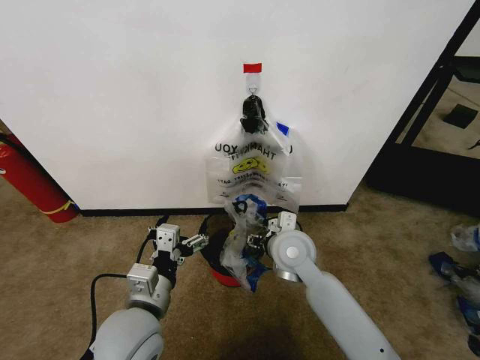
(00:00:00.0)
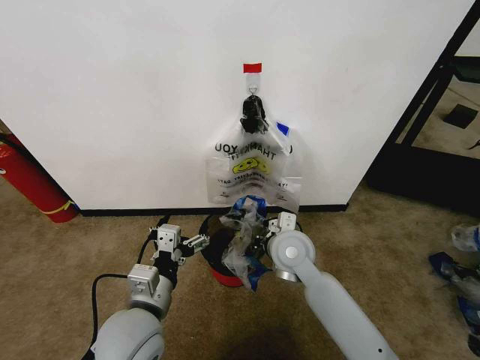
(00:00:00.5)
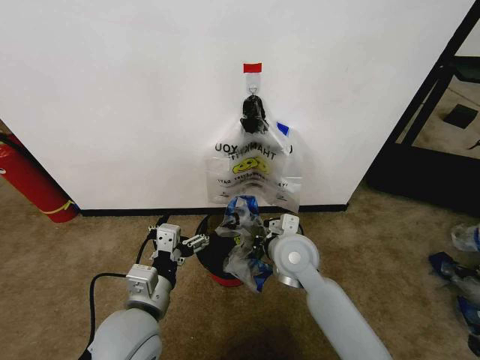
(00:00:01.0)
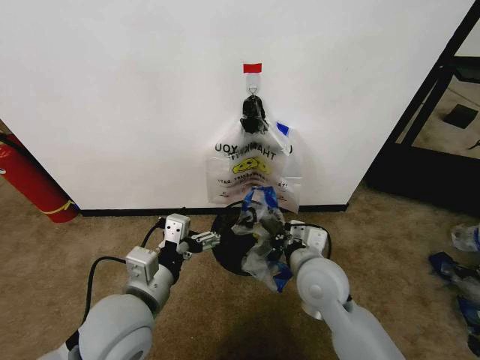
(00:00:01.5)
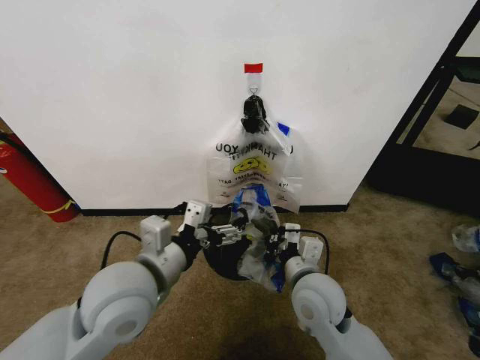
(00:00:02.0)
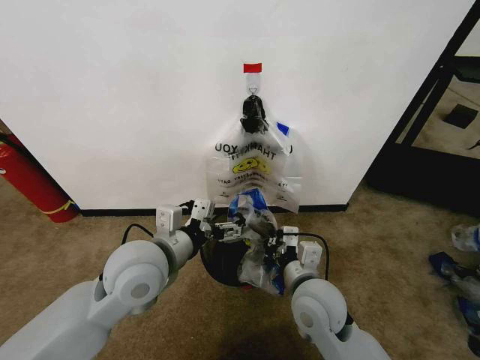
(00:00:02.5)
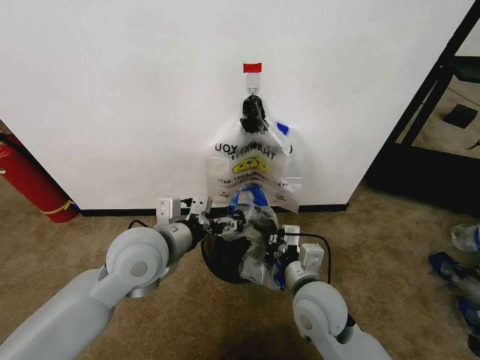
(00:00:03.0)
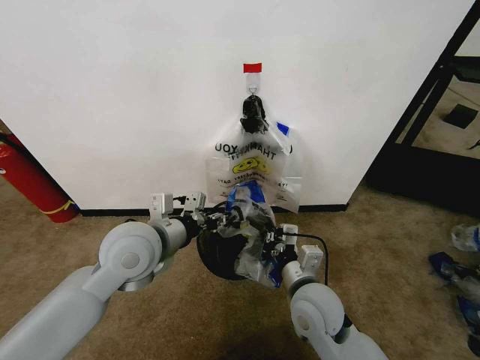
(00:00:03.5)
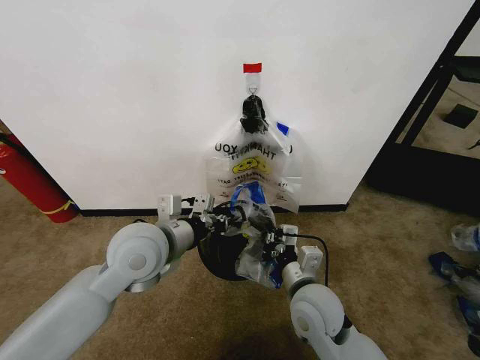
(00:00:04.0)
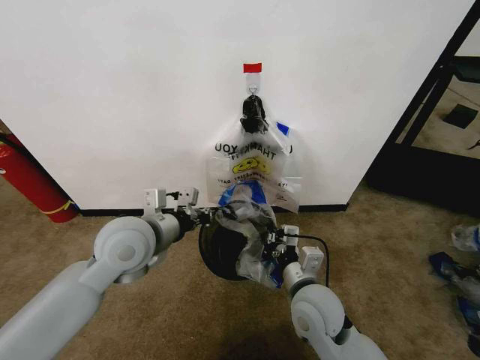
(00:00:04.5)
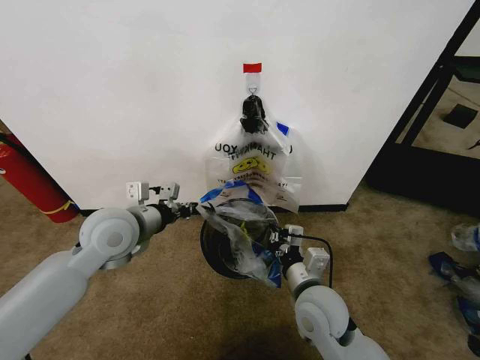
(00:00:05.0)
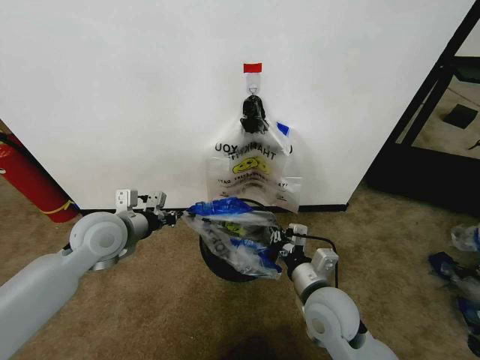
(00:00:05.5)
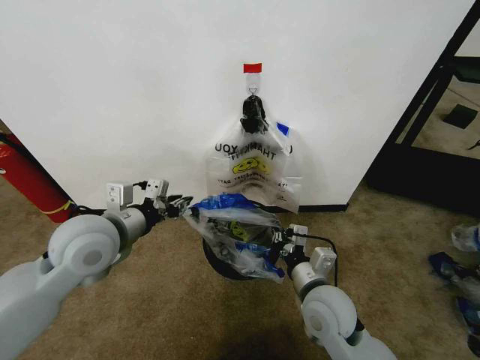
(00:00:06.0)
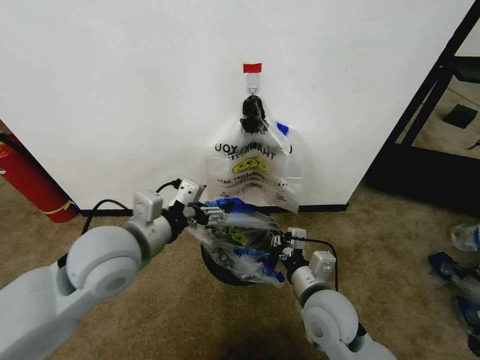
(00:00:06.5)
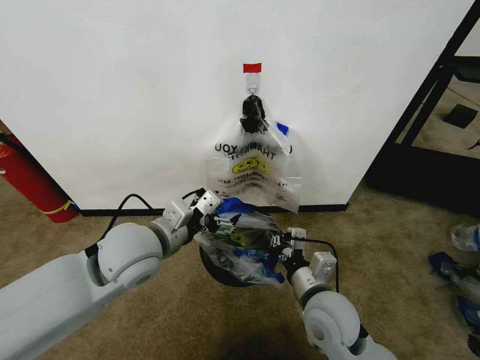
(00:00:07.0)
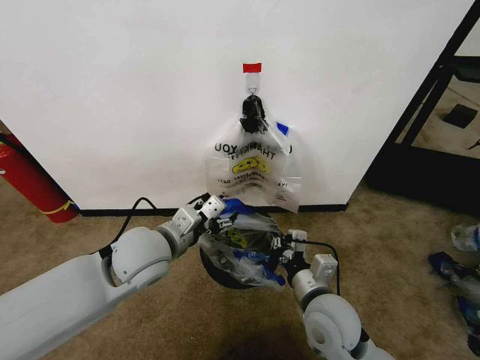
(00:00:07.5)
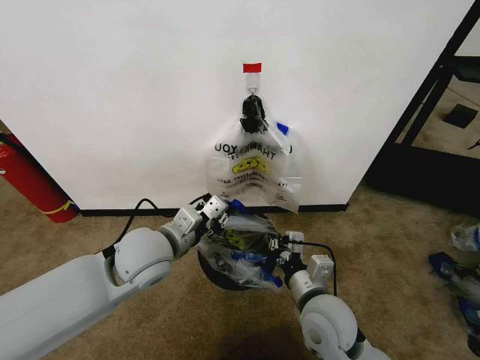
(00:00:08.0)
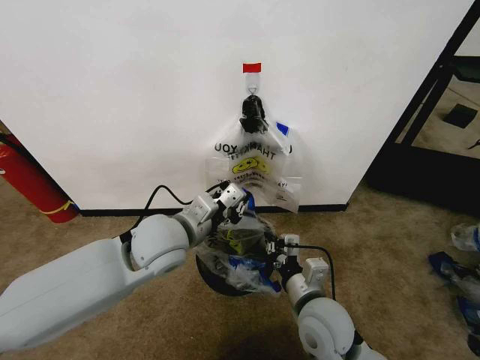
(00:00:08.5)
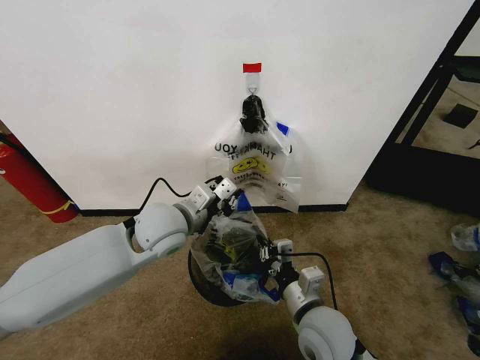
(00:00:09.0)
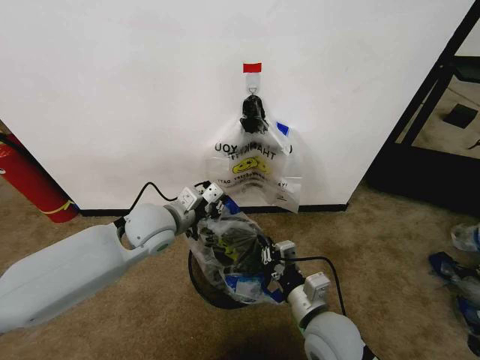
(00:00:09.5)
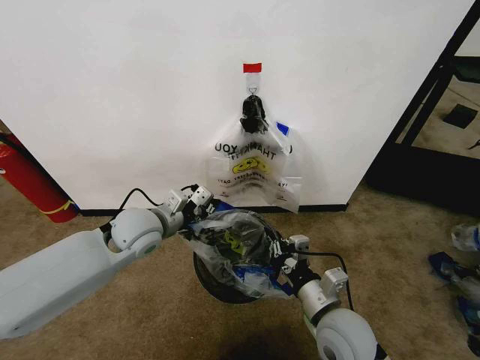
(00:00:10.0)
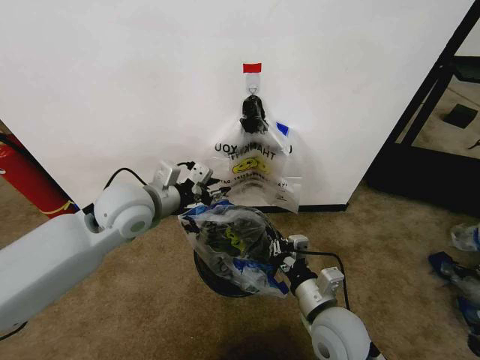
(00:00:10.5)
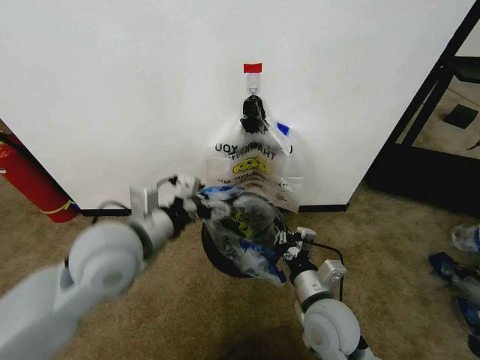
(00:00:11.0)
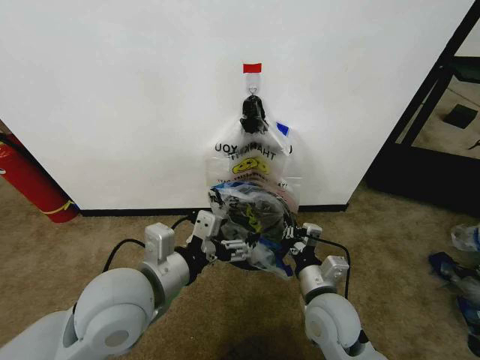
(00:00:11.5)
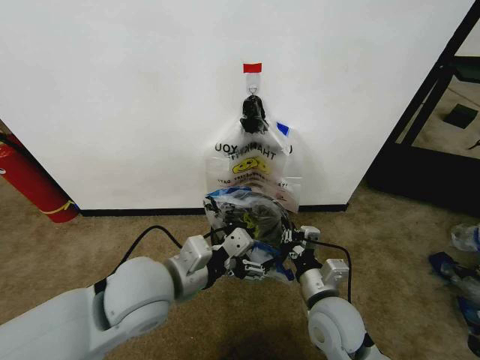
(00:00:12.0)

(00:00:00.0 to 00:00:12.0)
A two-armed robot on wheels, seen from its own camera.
Task of the whole recording: Pick up the garbage bag from the wall and place it over the trash bin.
00:00:00.0 - 00:00:02.0: The right gripper goes roughly 10 cm backward, and closes its fingers. The left gripper goes approximately 10 cm upward.
00:00:02.0 - 00:00:04.0: The left gripper goes about 10 cm forward, and closes.
00:00:04.0 - 00:00:06.0: The left gripper shifts some 10 cm to the left.
00:00:06.0 - 00:00:08.0: The left gripper is displaced to the right and downward by some 10 cm, and opens, then closes again.
00:00:08.0 - 00:00:10.0: The left gripper shifts roughly 5 cm forward.
00:00:10.0 - 00:00:12.0: The left gripper shifts some 15 cm backward and to the right, and opens up.

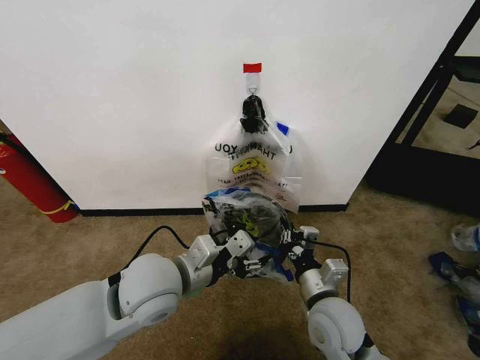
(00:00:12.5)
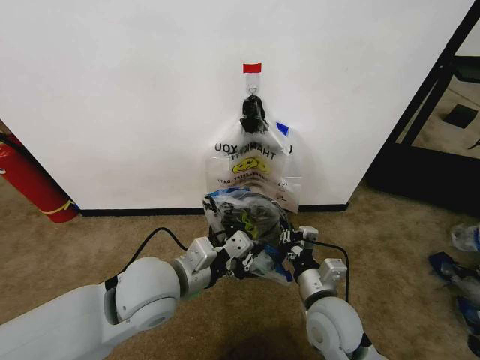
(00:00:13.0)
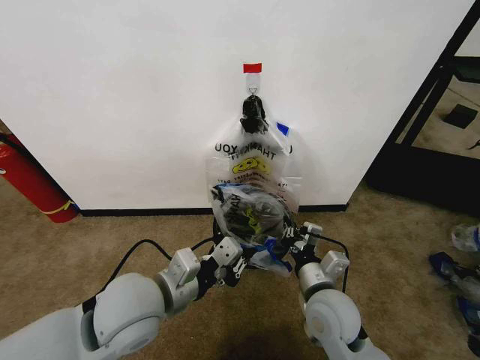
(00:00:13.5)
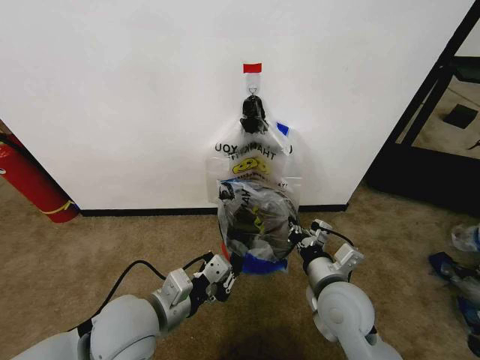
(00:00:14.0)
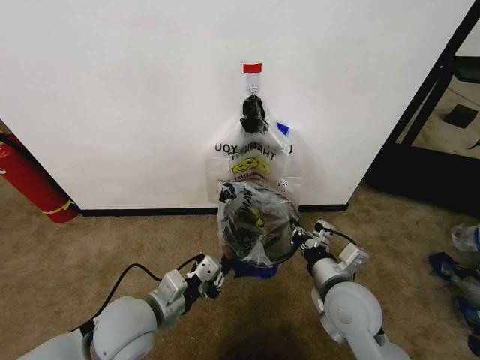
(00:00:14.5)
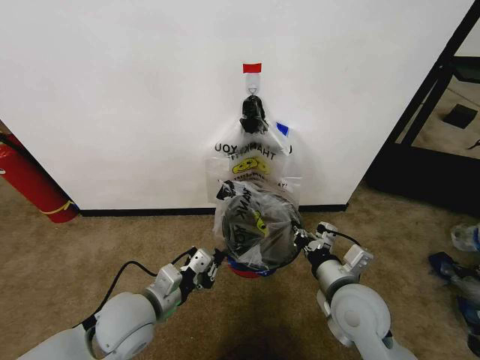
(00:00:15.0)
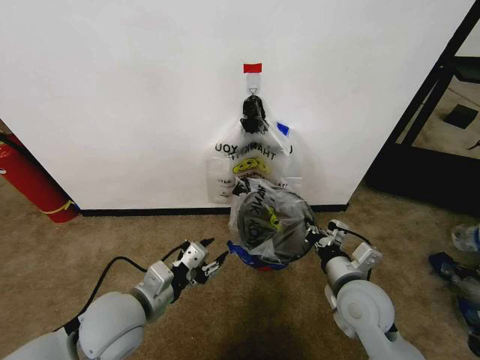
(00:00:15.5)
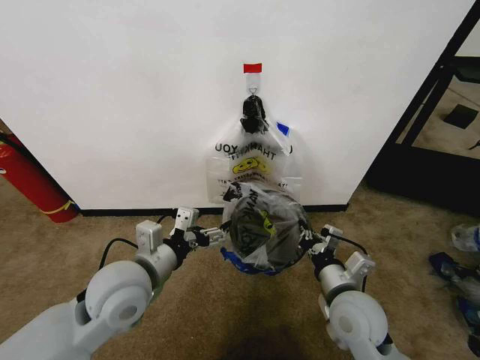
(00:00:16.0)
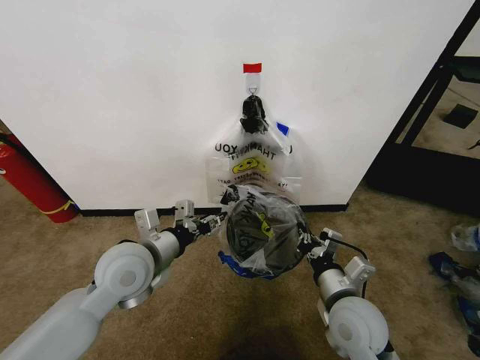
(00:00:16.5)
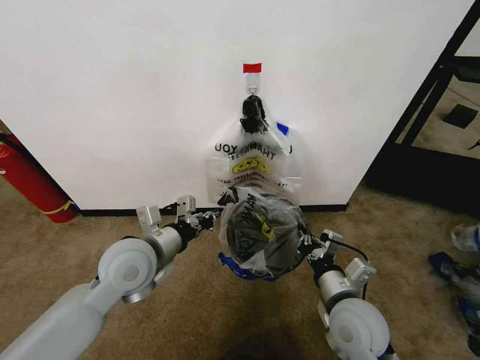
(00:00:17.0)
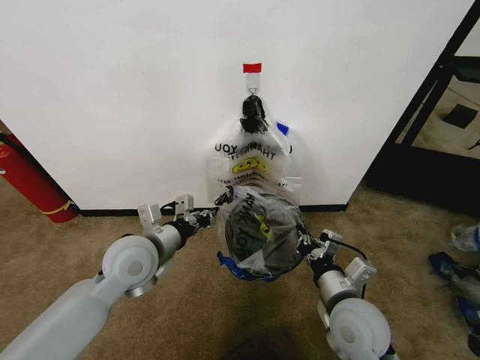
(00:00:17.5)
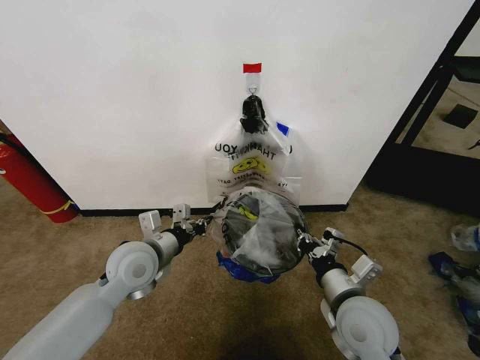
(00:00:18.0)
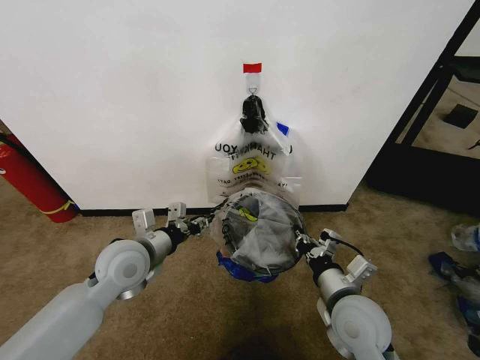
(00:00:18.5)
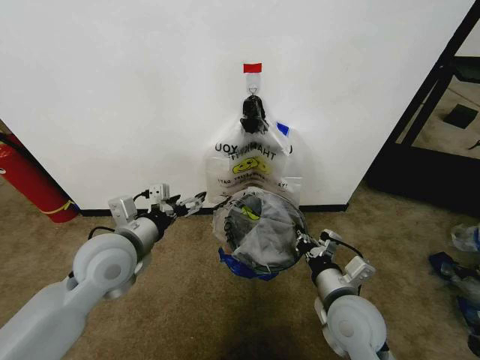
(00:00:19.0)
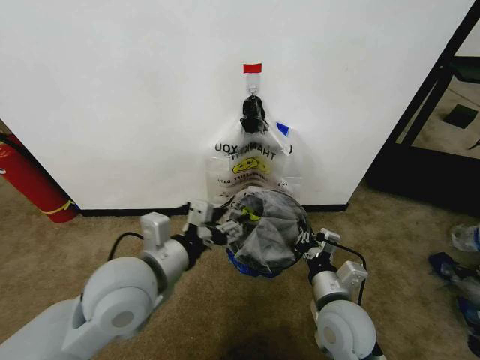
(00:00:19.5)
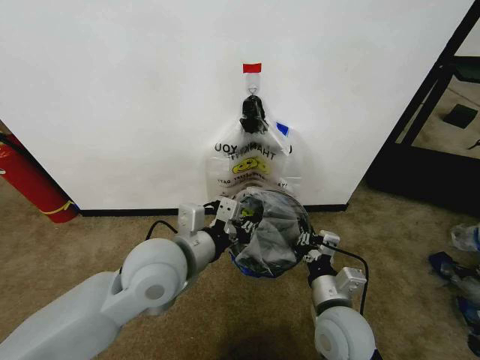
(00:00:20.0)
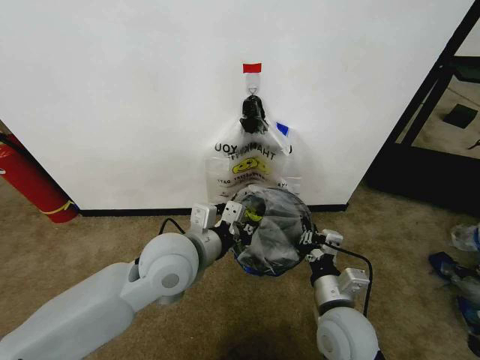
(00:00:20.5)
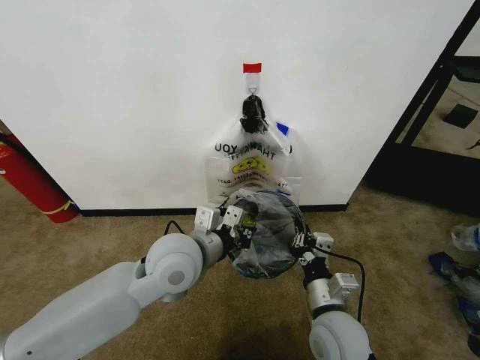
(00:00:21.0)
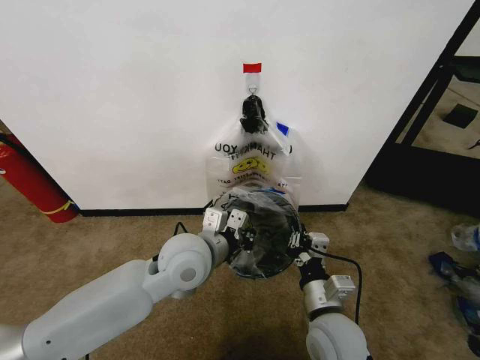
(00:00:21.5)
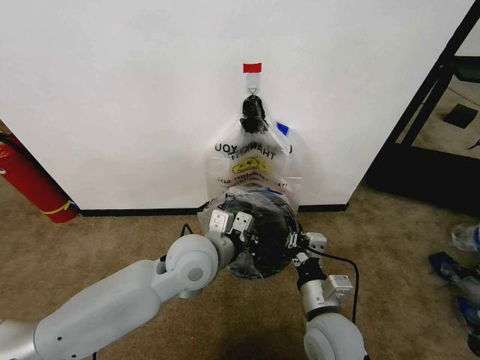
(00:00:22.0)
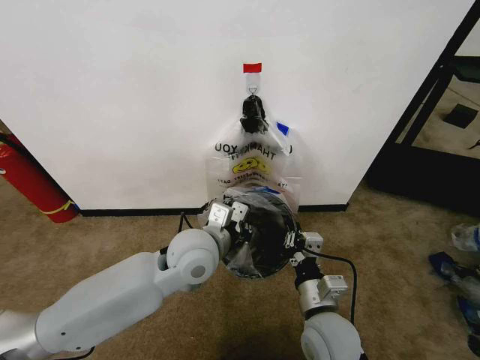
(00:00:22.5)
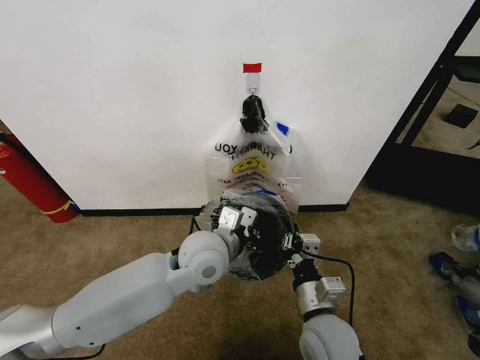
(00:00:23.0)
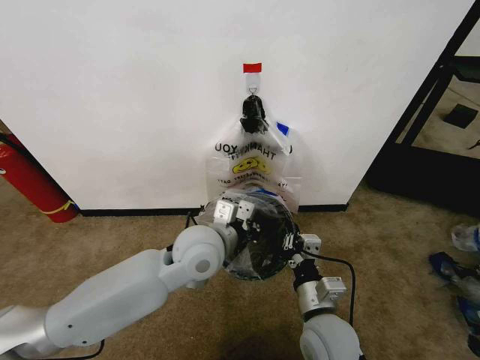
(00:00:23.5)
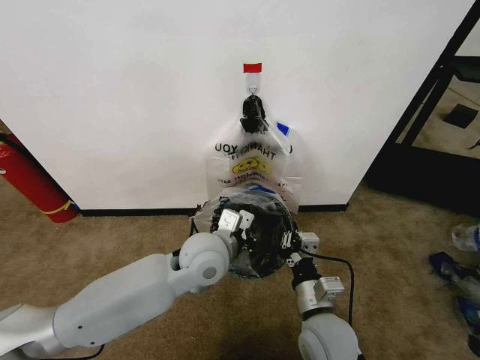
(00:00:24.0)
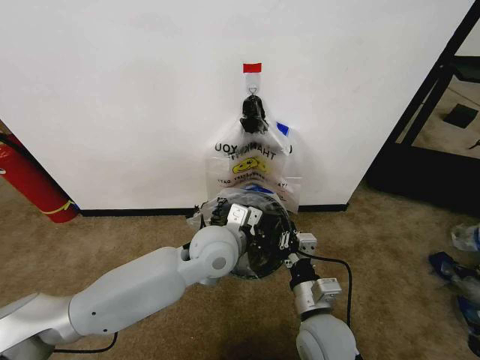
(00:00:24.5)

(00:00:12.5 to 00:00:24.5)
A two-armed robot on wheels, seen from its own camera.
Task of the whole recording: Pick up the garbage bag from the wall and place it over the trash bin.
00:00:12.5 - 00:00:14.5: The left gripper travels downward by approximately 5 cm, and closes up.
00:00:14.5 - 00:00:16.5: The left gripper heads forward and upward, covering about 10 cm, and opens its fingers.
00:00:16.5 - 00:00:18.5: The grippers stay close to where they were, moving slightly.
00:00:18.5 - 00:00:20.5: The left gripper is displaced to the right and upward by approximately 10 cm, and opens, then closes again.
00:00:20.5 - 00:00:22.5: The left gripper ends up approximately 5 cm from where it was.
00:00:22.5 - 00:00:24.5: The grippers move only a little.

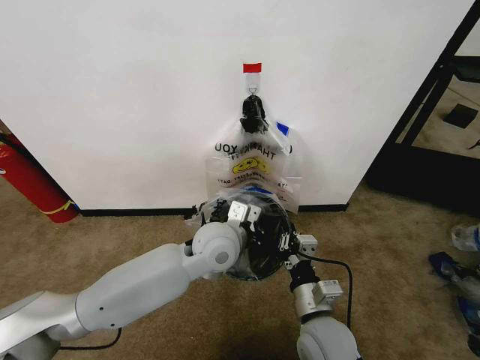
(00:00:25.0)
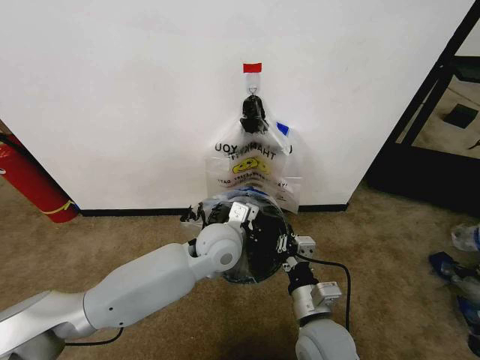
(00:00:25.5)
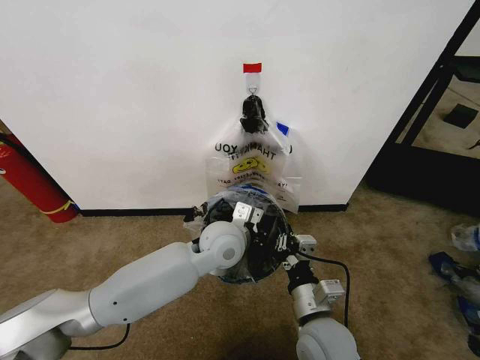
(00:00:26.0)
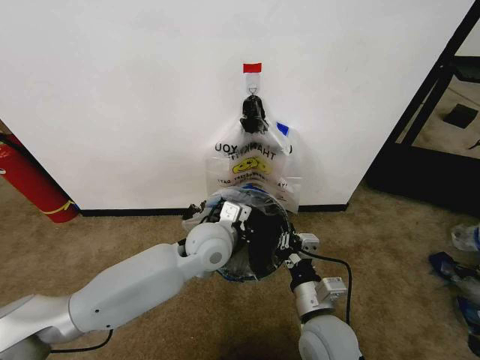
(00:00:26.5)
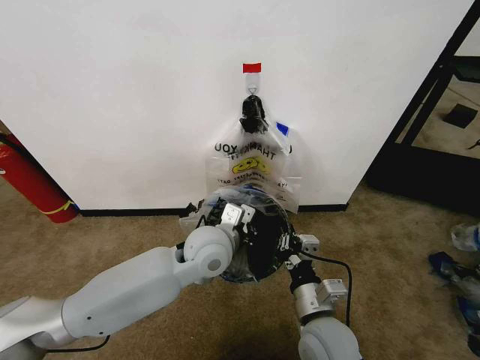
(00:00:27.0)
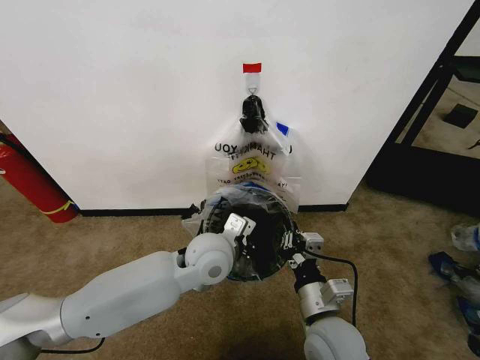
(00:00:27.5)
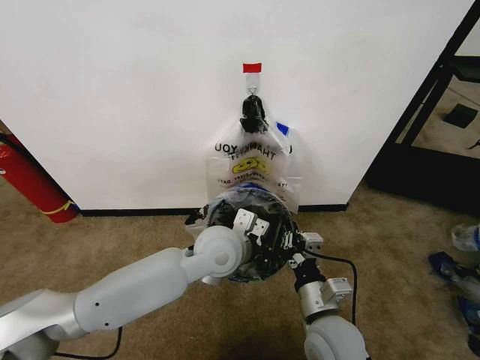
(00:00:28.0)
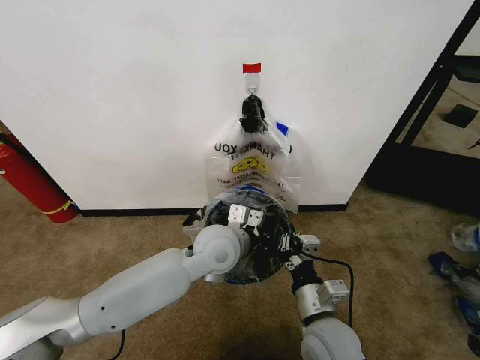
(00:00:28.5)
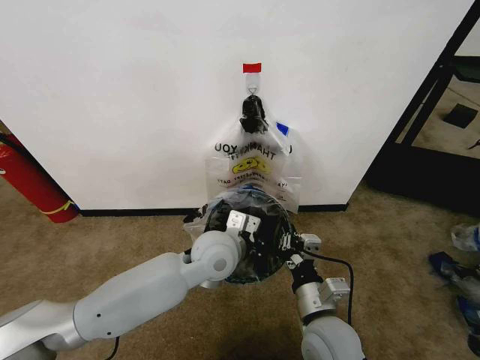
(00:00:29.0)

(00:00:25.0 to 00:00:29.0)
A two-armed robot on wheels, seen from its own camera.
Task of the whole recording: Pick up the garbage bag from the wall and place it over the trash bin.
00:00:25.0 - 00:00:29.0: The grippers stay close to where they were, moving slightly.
